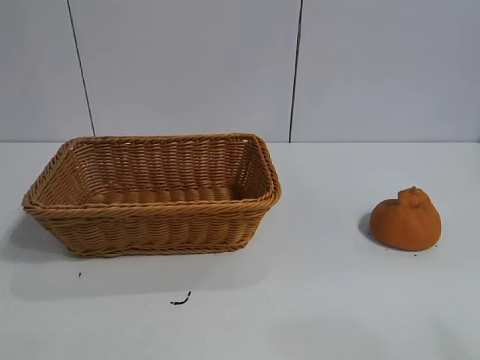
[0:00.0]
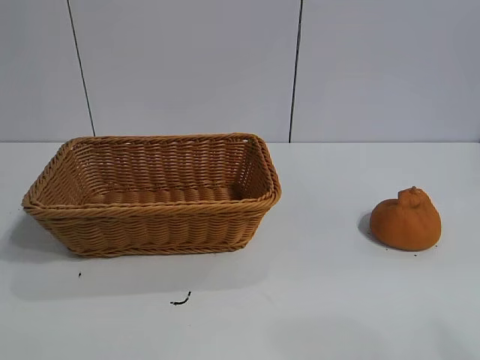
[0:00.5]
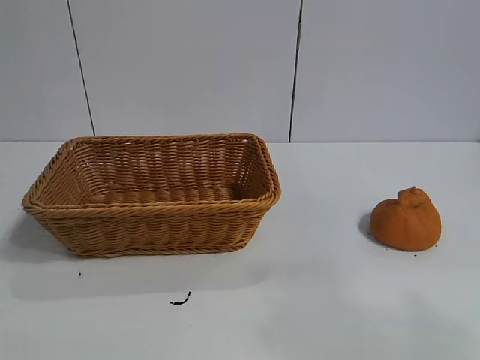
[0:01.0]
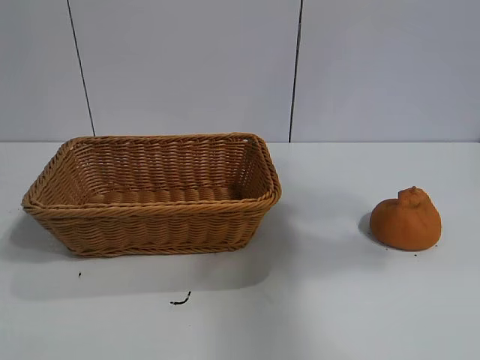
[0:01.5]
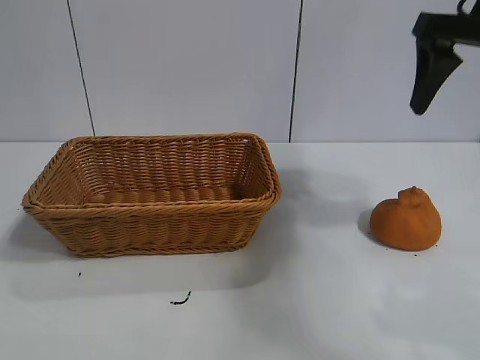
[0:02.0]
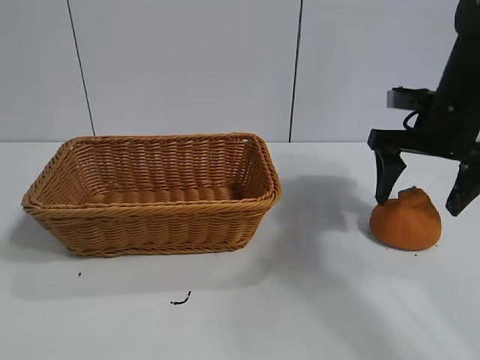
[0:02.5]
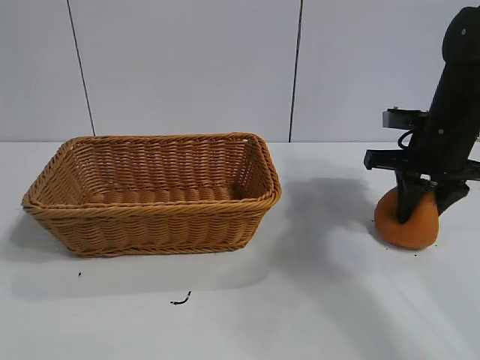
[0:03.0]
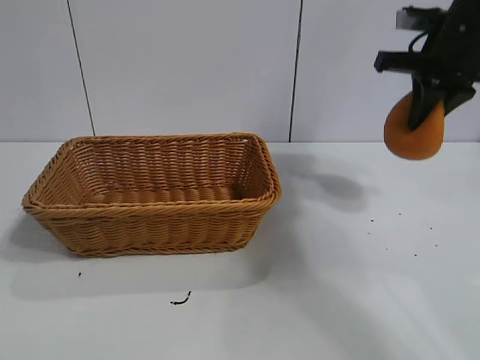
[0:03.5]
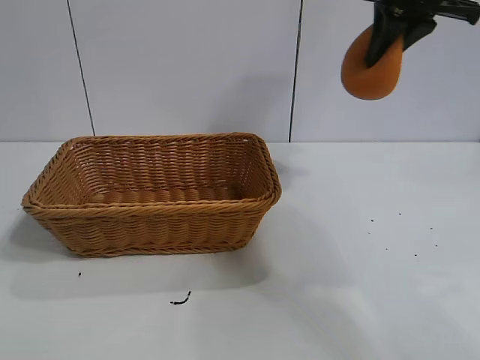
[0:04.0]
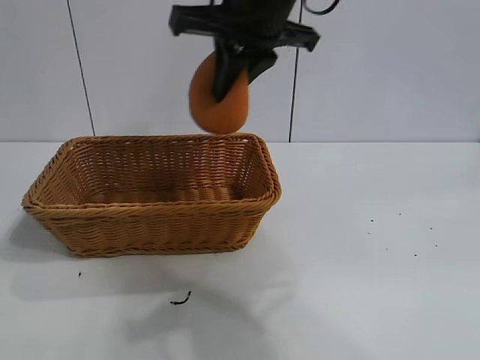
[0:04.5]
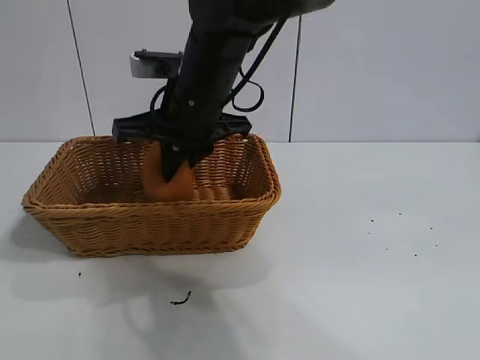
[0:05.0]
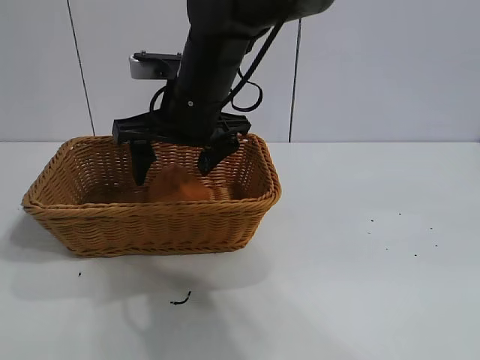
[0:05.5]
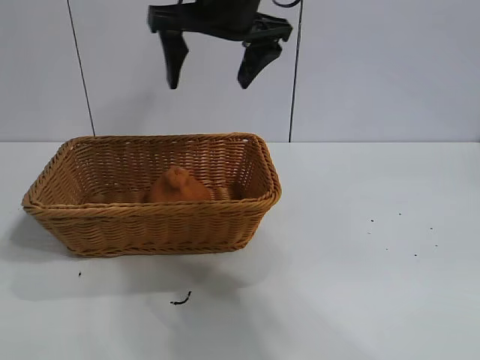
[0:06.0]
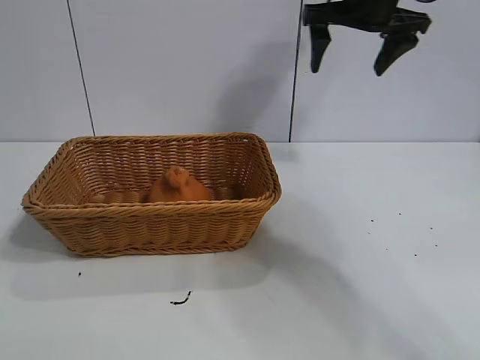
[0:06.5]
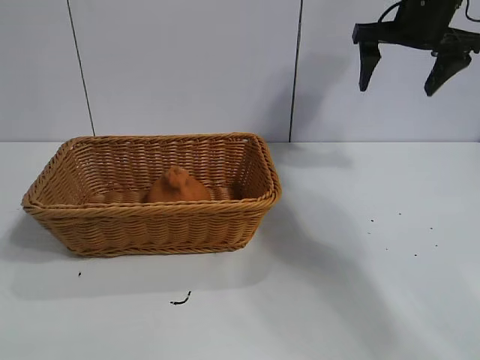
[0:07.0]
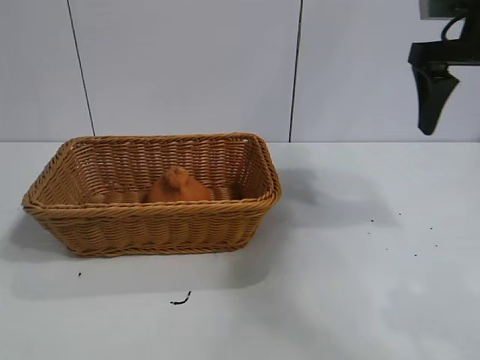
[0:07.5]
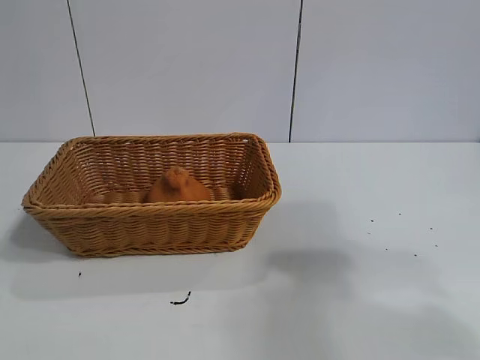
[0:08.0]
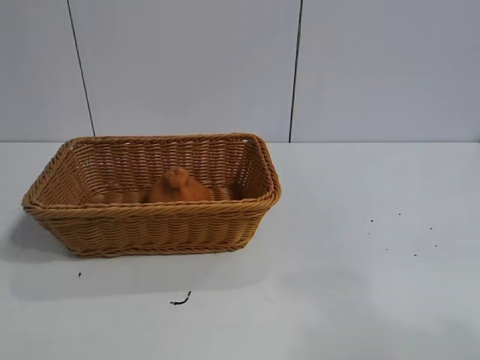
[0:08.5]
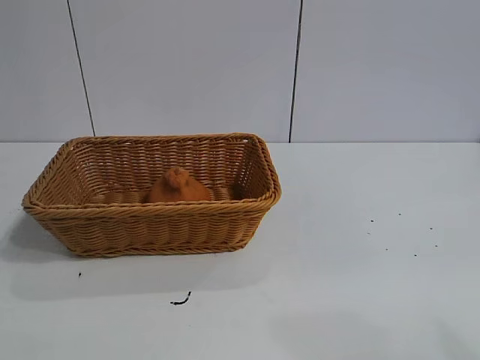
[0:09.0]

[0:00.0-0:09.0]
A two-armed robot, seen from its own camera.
Task of the whole recording: pick up the orange and put it into the basket.
Step, 0:01.0 to 0:02.5: Grasp the orange with right gripper.
Step, 0:03.5 to 0:05.5: Place the orange in the basket with right gripper.
